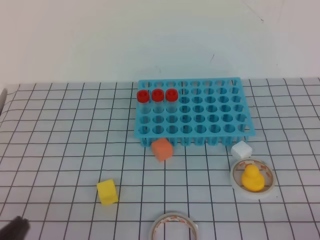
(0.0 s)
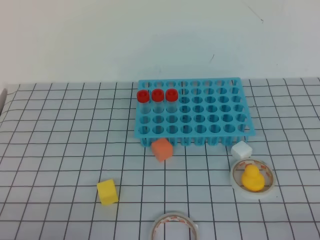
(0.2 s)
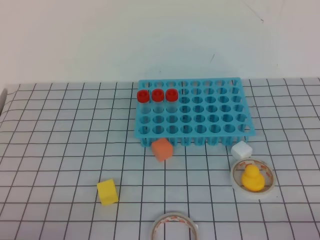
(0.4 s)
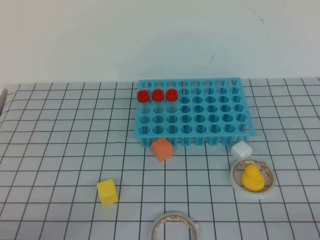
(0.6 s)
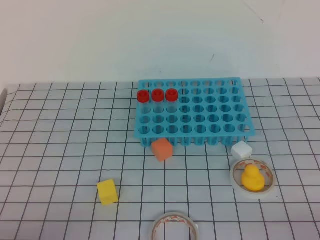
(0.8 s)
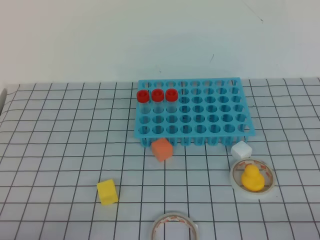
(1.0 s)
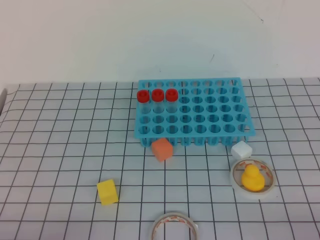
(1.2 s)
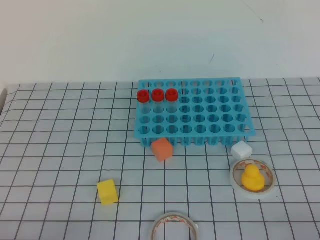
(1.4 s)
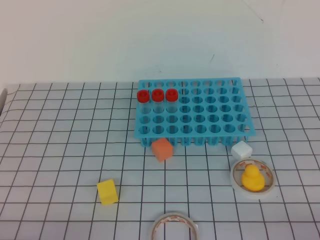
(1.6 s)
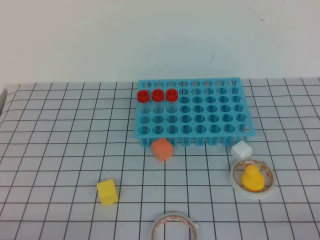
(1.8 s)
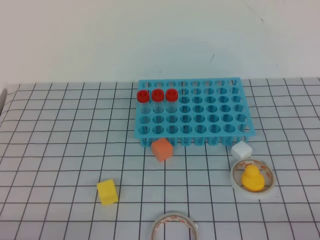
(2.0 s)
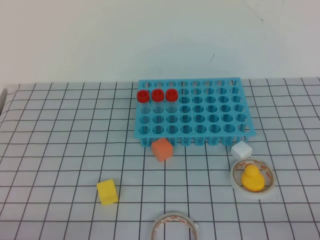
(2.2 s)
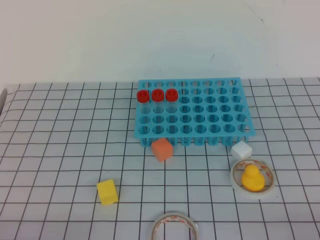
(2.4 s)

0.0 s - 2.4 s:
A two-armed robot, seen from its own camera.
0.0 s - 1.2 s: The left gripper shifts by some 5 cm.
